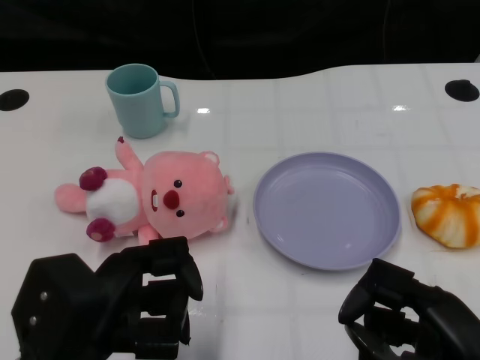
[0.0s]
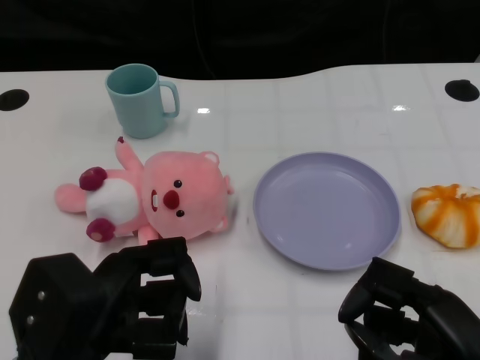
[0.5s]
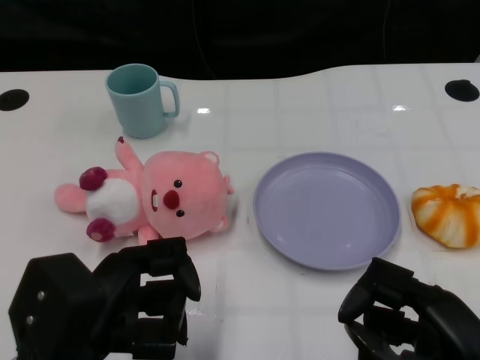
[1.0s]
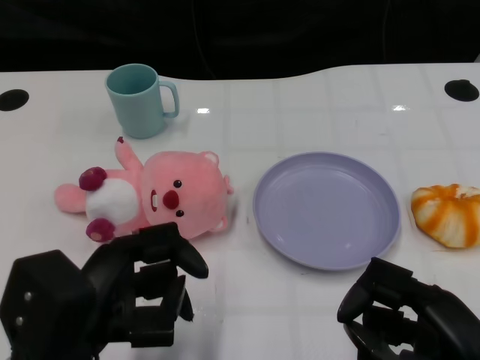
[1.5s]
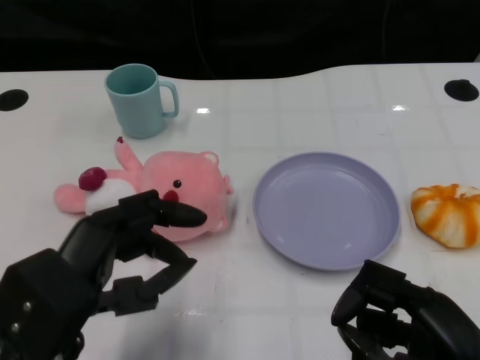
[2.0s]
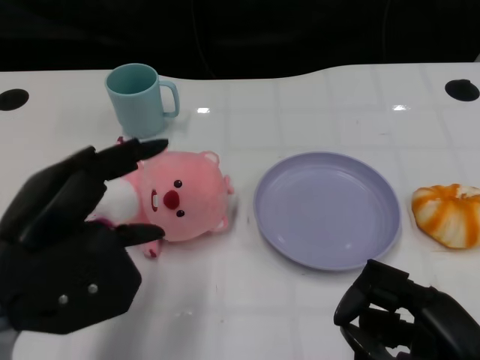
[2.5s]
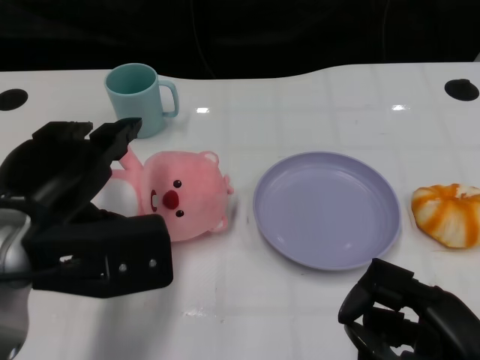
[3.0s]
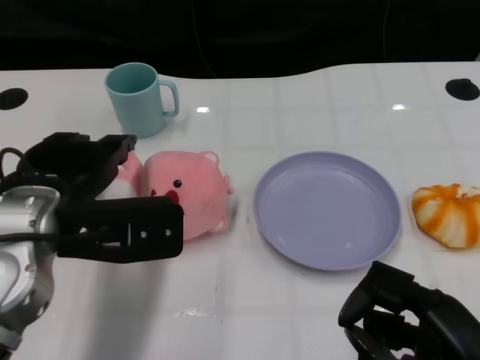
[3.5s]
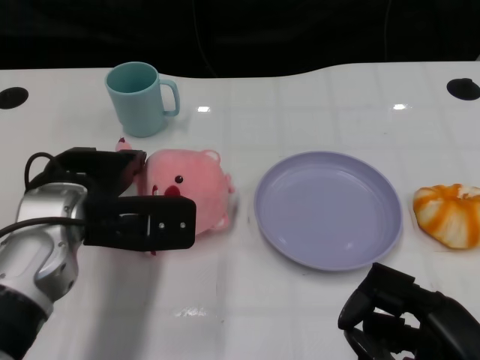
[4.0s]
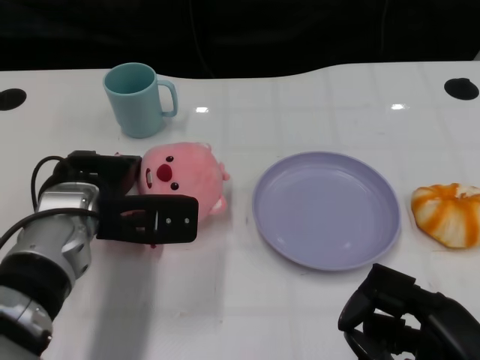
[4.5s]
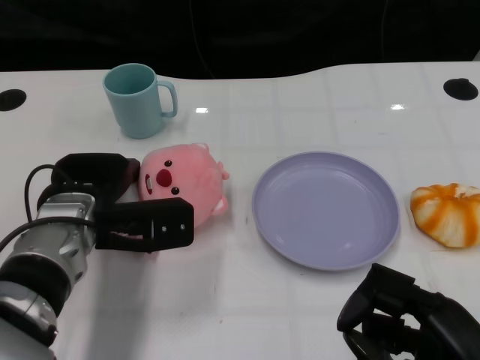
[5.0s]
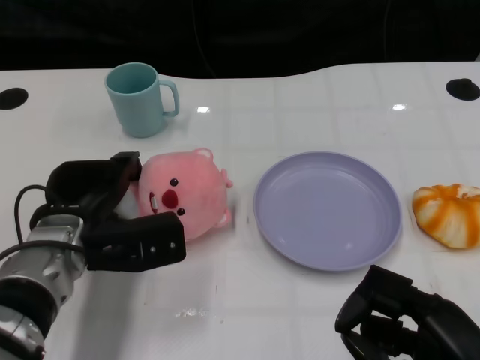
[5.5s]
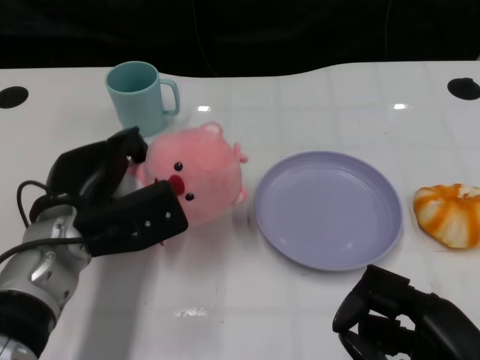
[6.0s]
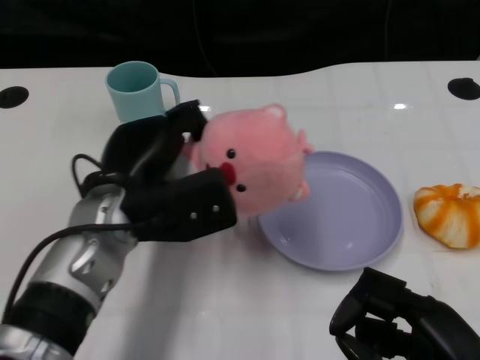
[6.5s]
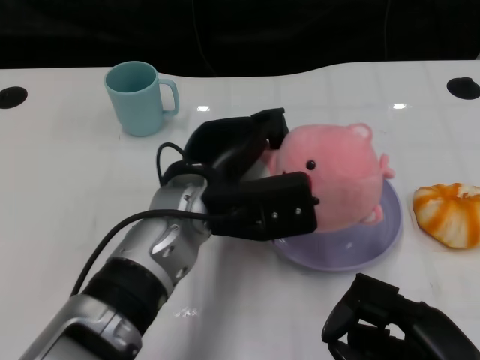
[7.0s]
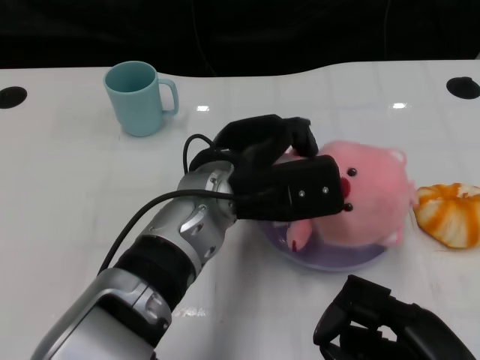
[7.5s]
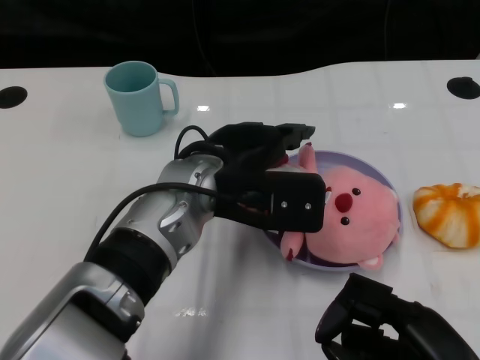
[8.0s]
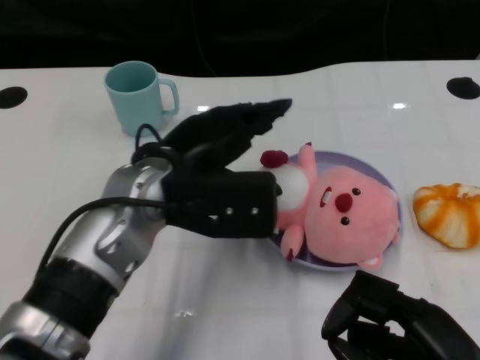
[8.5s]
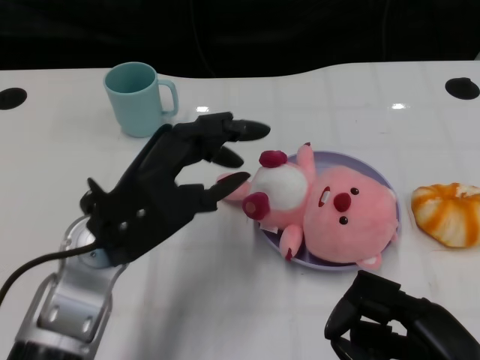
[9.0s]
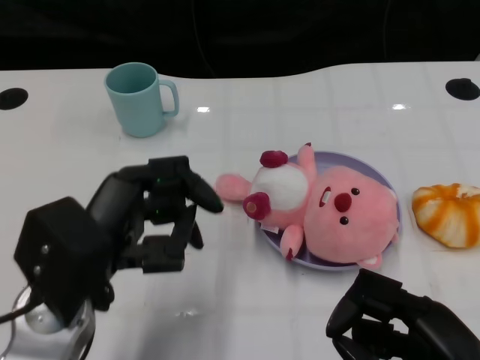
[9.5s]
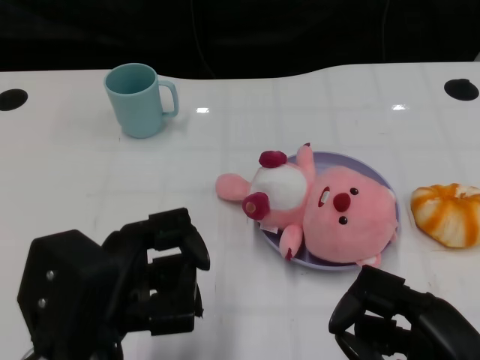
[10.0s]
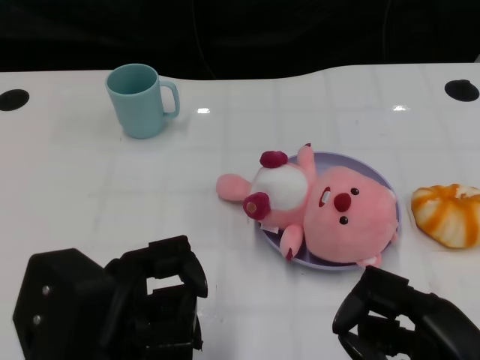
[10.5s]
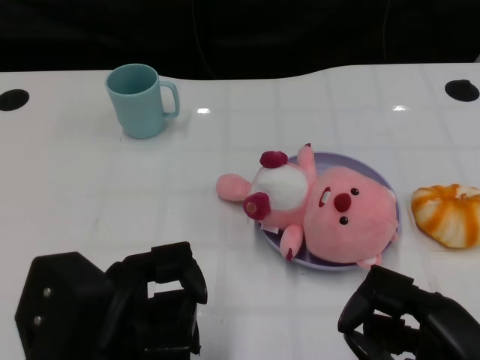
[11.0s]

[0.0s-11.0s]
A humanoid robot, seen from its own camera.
Task of the whole recording: Pick up the doll on one side of the plate and place it into the plate.
Step, 1.5s to 5.5s: Grasp the pink doll with the left gripper.
Step, 6.0s to 8.0s: Place the pink doll into the plate with the left gripper.
2.0s to 3.5s: The left hand shifts some 10 cm forward.
3.5s to 5.5s: The left hand shifts some 10 cm downward.
5.5s to 7.5s: The left hand heads to the right and upward, covering approximately 15 cm.
7.5s to 9.0s: The left hand goes about 10 cm to the left.
9.0s to 11.0s: The left hand shifts approximately 10 cm backward.

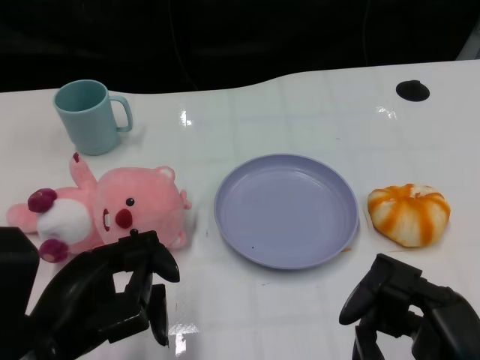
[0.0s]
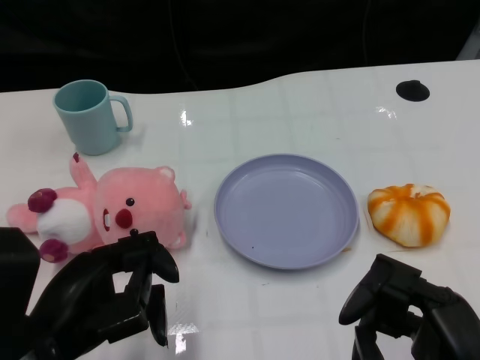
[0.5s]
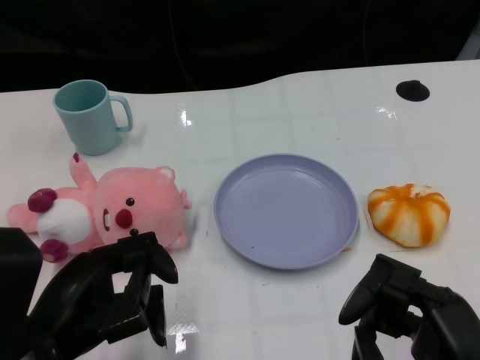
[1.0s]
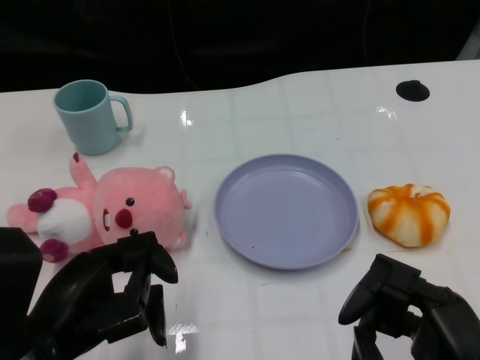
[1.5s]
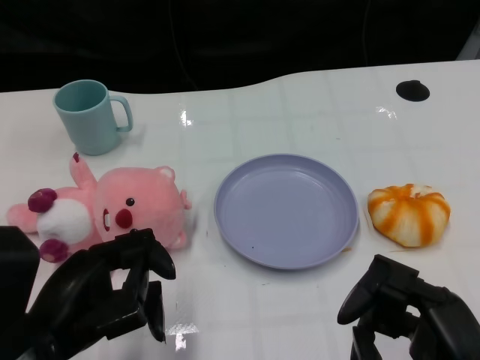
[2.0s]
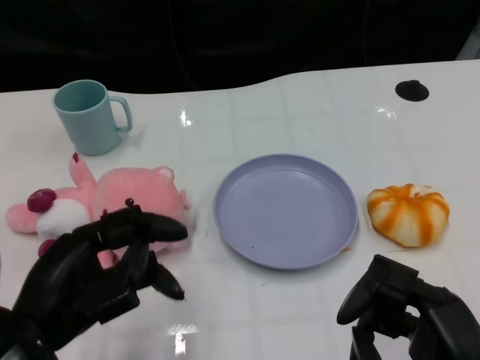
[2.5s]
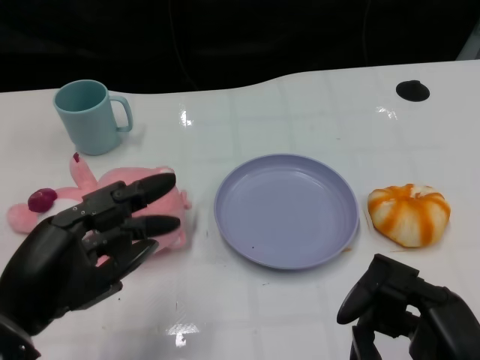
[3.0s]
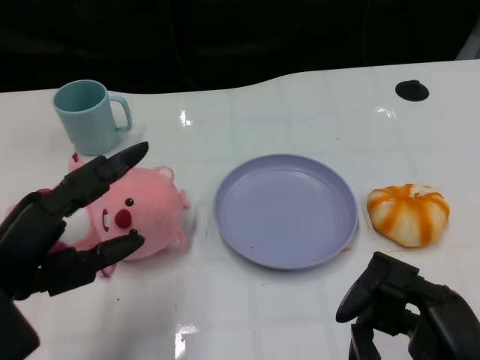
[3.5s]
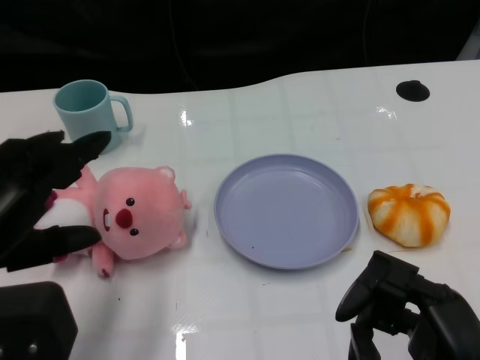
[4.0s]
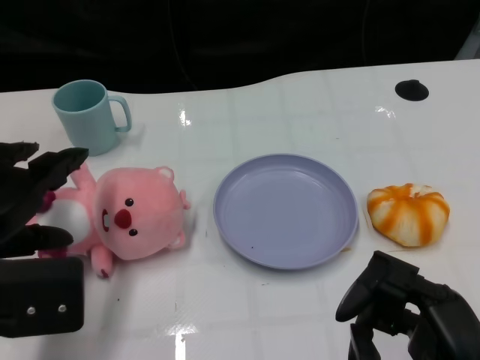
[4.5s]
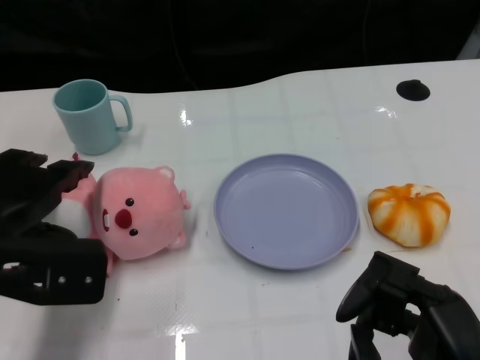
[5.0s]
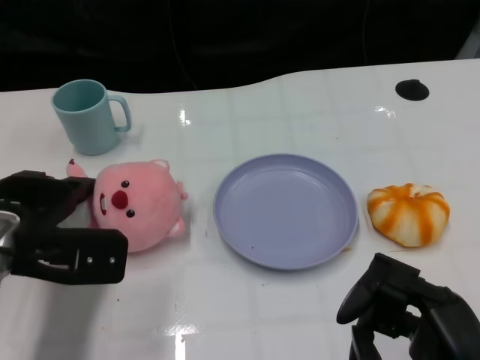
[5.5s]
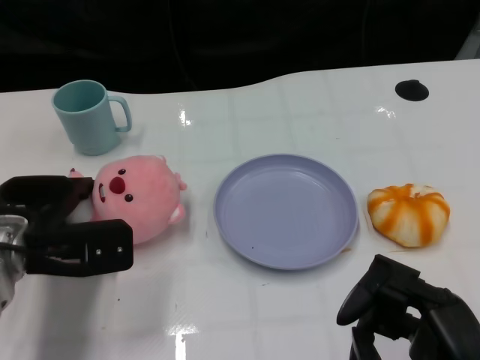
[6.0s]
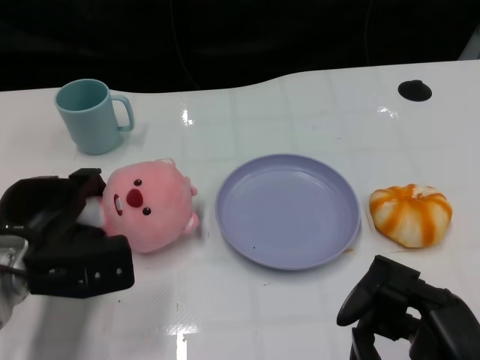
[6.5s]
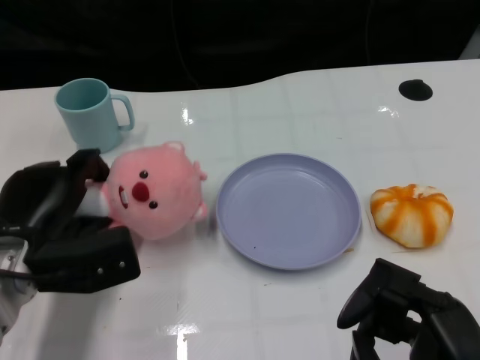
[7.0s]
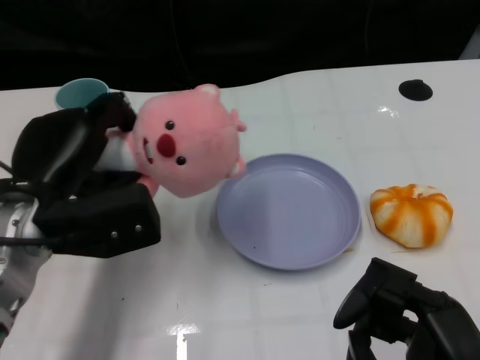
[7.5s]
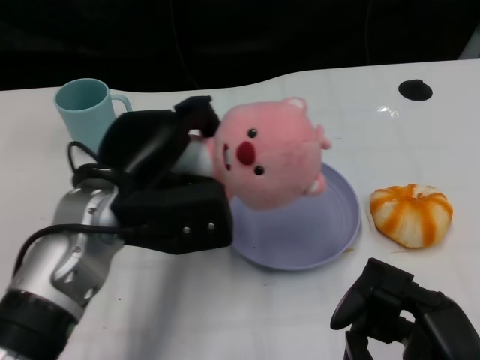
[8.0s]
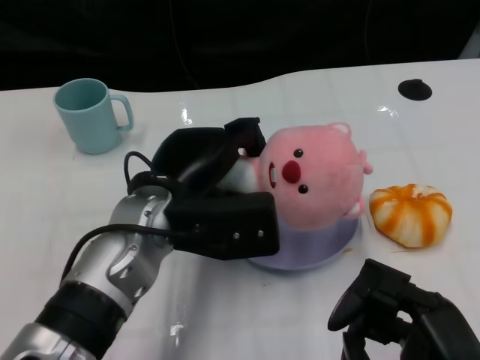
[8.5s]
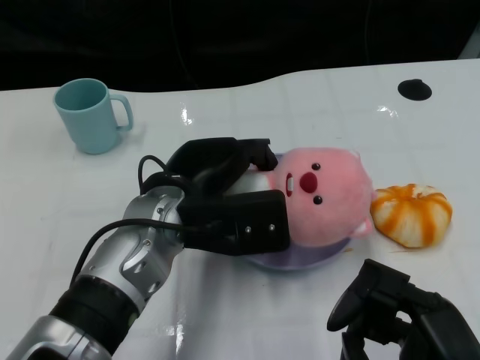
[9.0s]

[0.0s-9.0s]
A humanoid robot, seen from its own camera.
Task of the whole recording: Pick up the doll on one side of the plate and place it into the plate.
Step, 2.0s to 7.0s: Grasp the pink doll with the left gripper.
2.0s to 4.5s: The left hand is displaced upward and to the left by roughly 10 cm.
4.5s to 7.0s: The left hand shifts about 10 cm downward and forward.
7.0s to 9.0s: The left hand goes approximately 15 cm to the right.

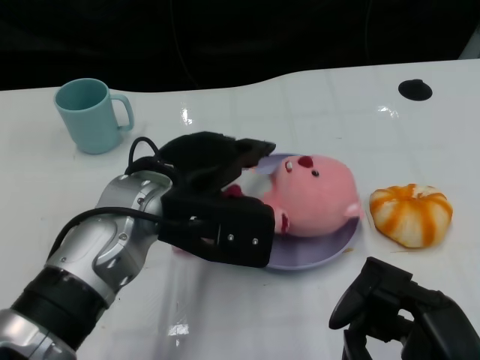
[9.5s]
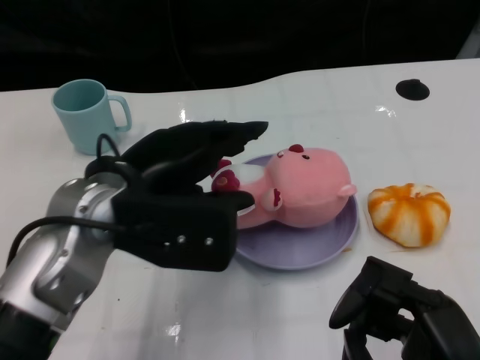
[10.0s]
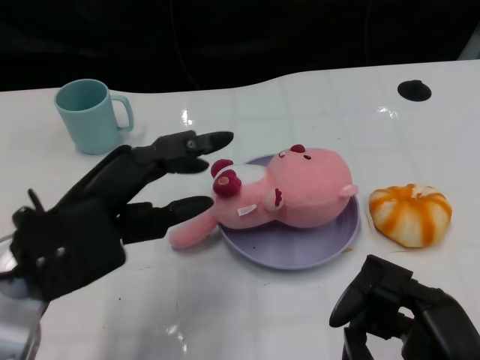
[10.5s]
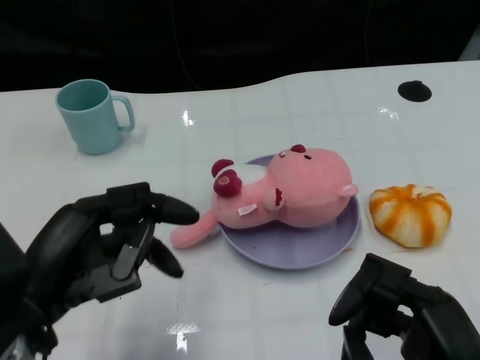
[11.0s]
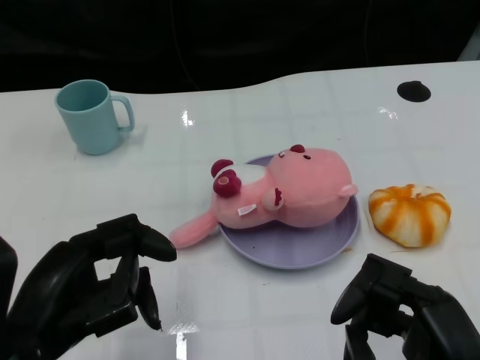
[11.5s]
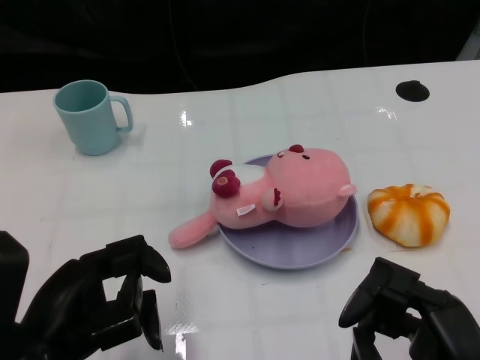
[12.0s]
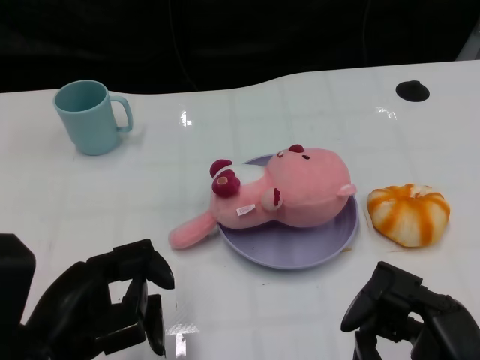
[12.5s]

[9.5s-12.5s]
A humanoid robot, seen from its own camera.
Task of the whole recording: Pick up the doll on one side of the plate and place it into the plate.
9.5s to 11.0s: The left hand moves backward and to the left, roughly 15 cm.

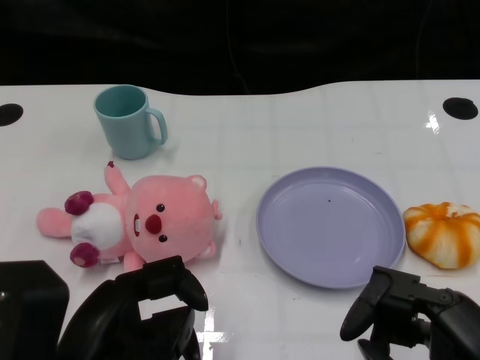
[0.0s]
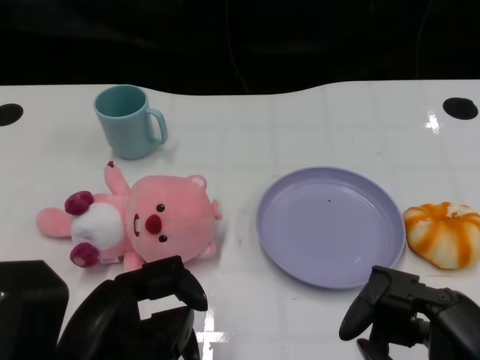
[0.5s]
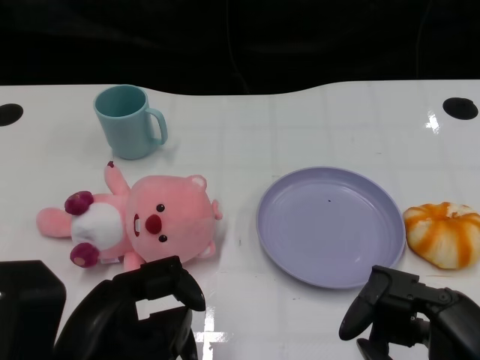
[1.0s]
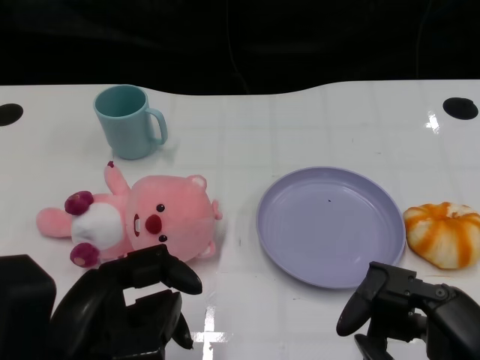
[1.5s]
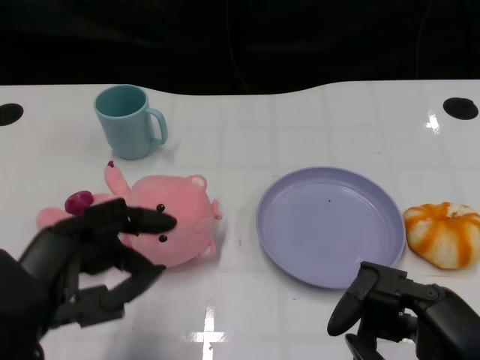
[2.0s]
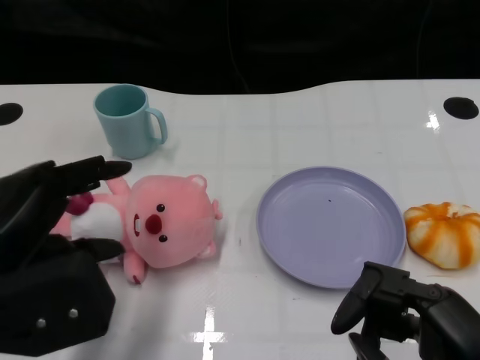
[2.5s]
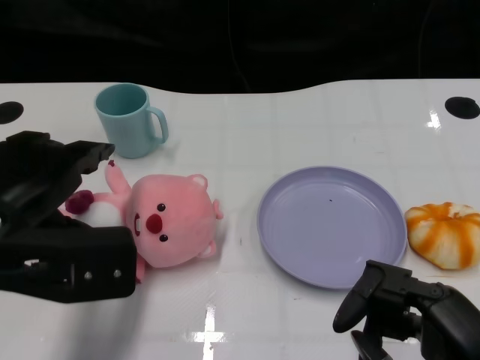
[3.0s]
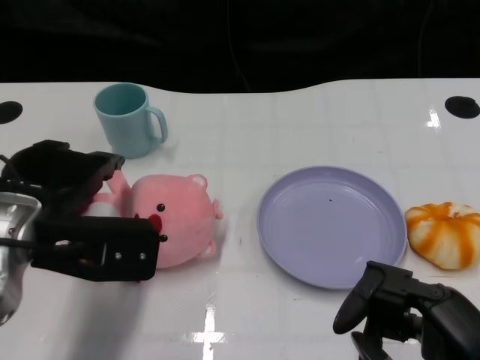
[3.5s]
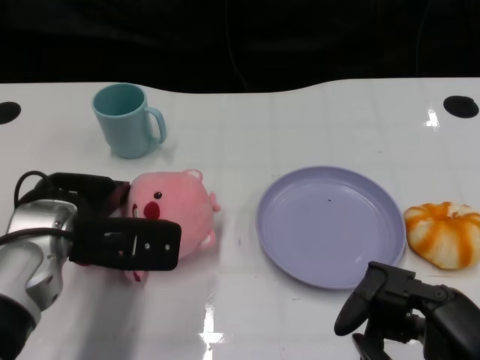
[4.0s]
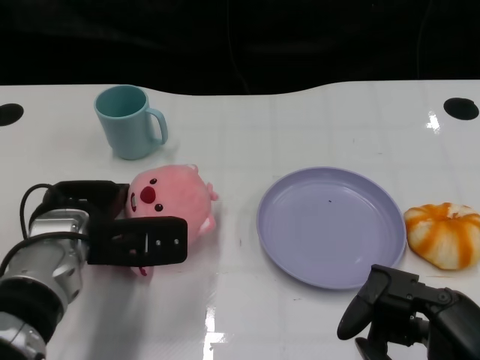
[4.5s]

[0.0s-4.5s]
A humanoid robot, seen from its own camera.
Task of the whole recording: Pick up the doll on one side of the plate and place it into the plate.
2.0s to 4.5s: The left hand travels forward by approximately 15 cm.
